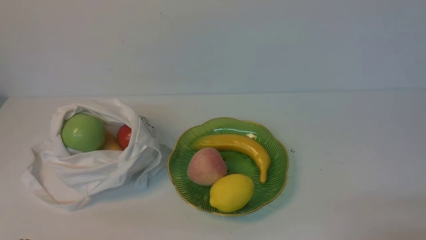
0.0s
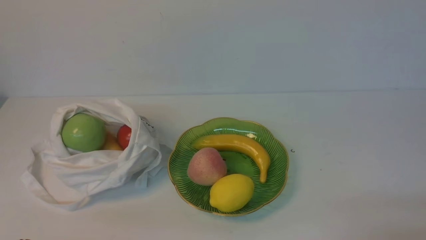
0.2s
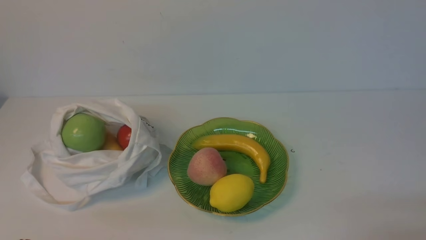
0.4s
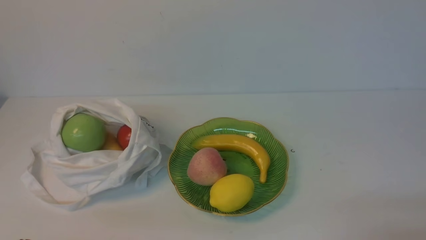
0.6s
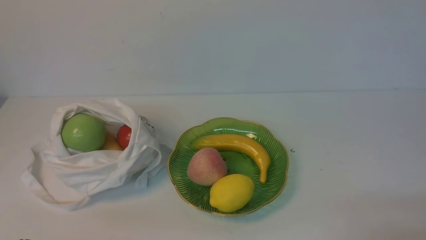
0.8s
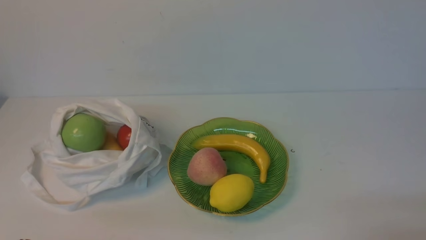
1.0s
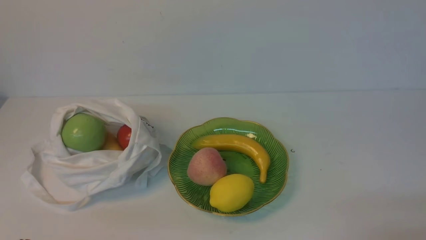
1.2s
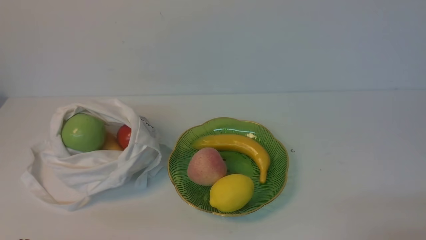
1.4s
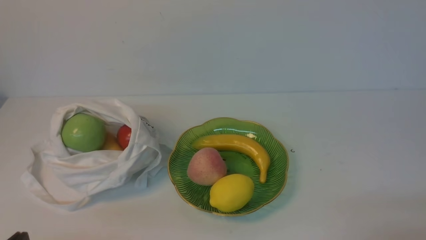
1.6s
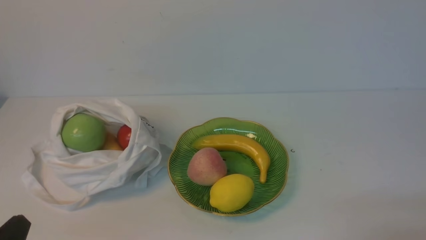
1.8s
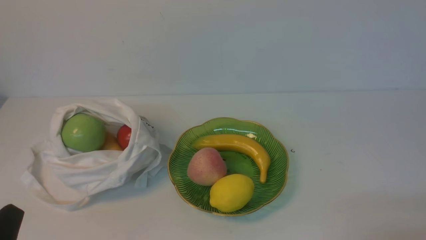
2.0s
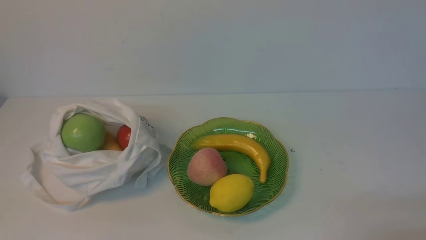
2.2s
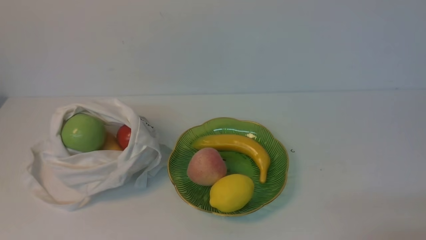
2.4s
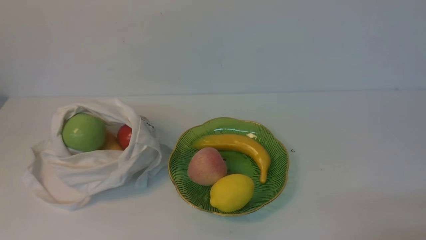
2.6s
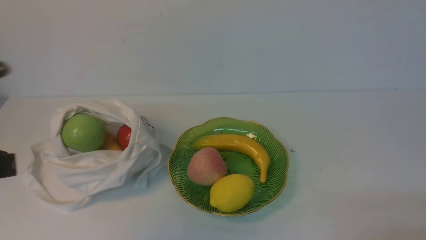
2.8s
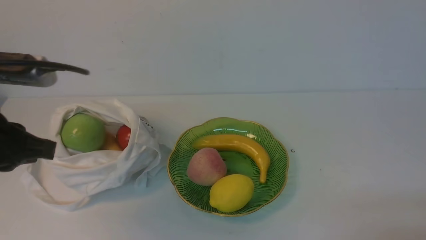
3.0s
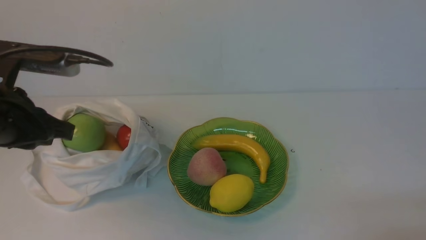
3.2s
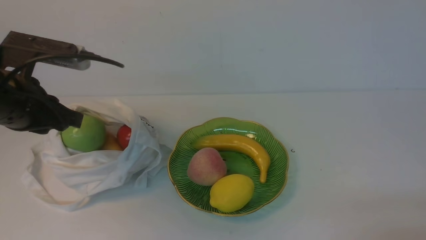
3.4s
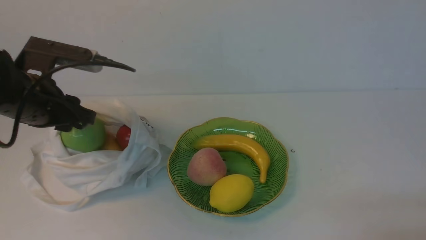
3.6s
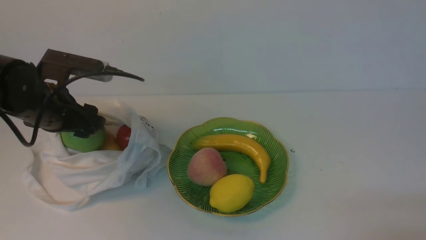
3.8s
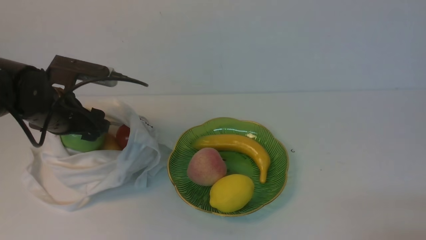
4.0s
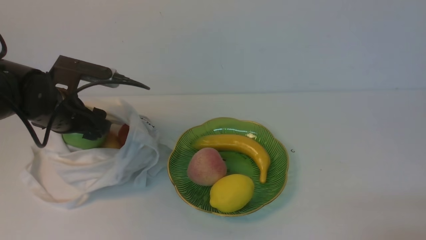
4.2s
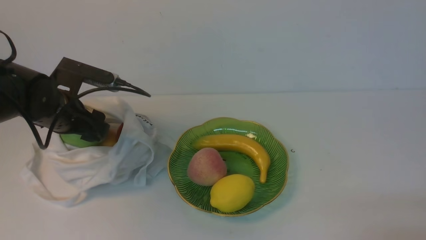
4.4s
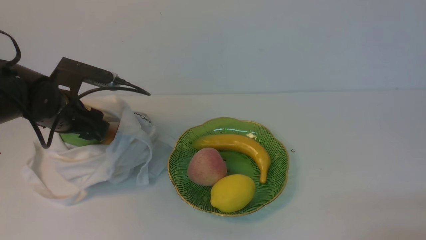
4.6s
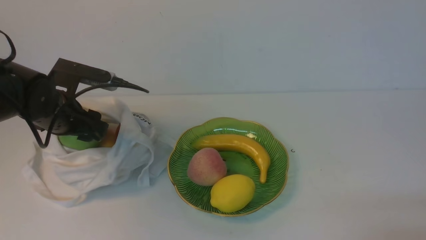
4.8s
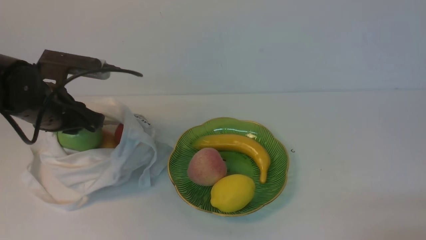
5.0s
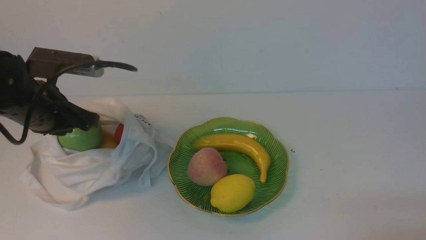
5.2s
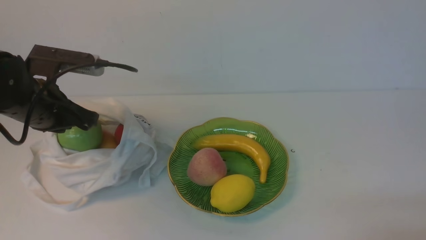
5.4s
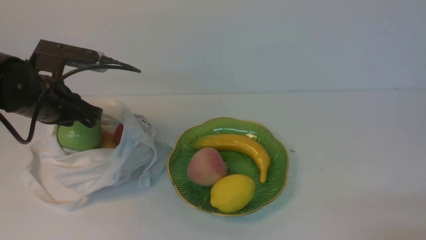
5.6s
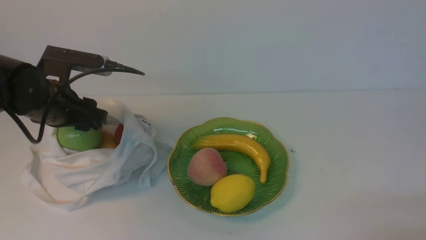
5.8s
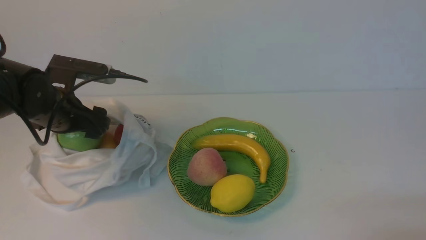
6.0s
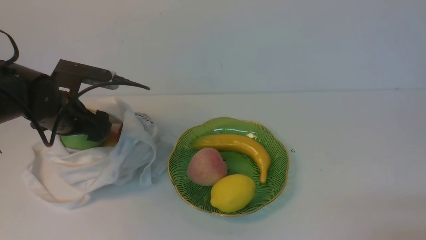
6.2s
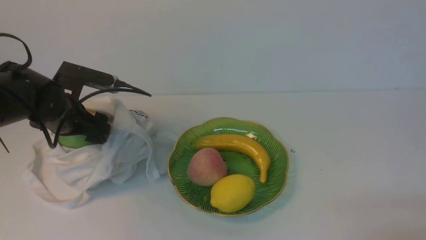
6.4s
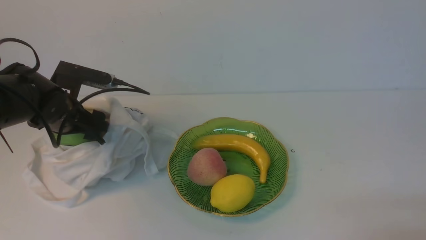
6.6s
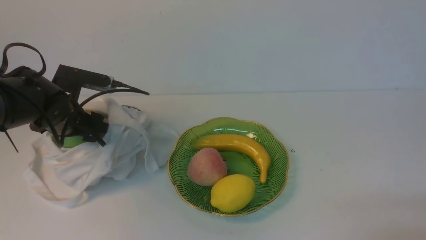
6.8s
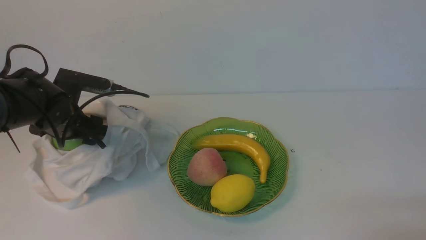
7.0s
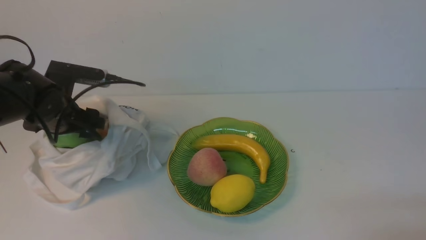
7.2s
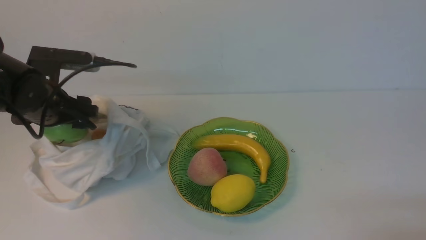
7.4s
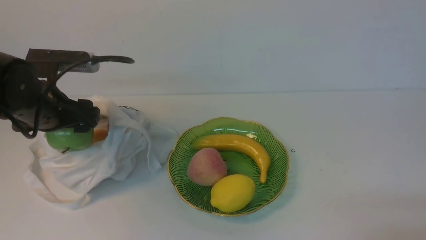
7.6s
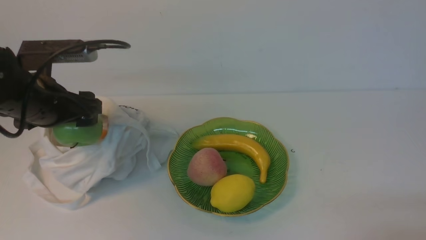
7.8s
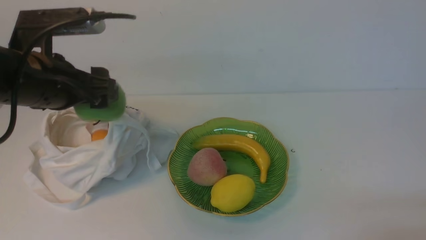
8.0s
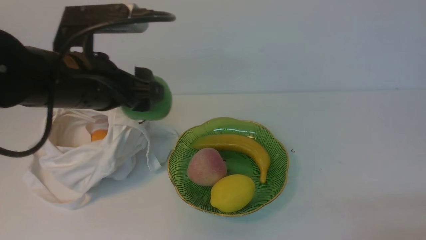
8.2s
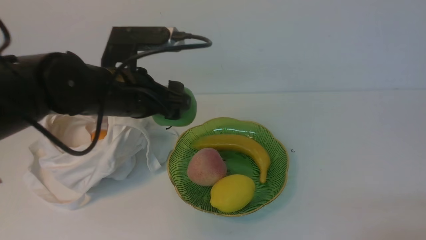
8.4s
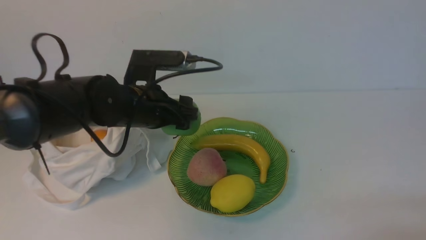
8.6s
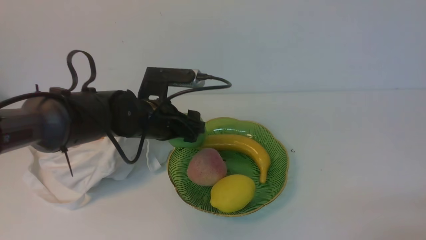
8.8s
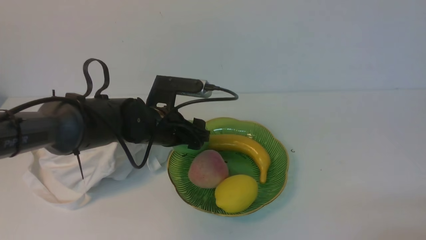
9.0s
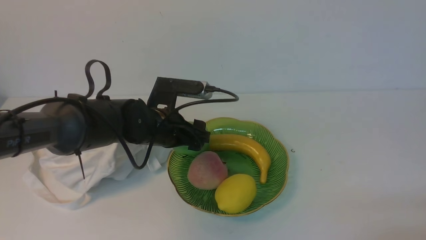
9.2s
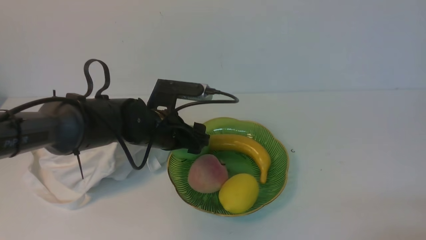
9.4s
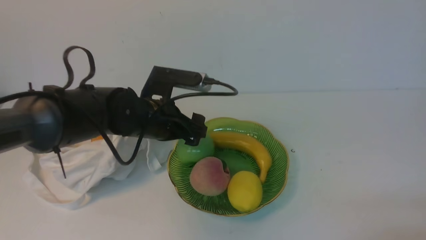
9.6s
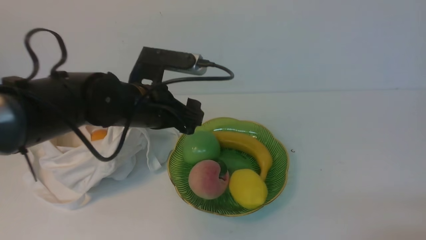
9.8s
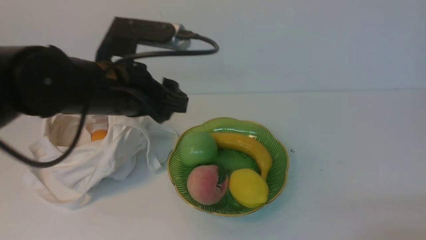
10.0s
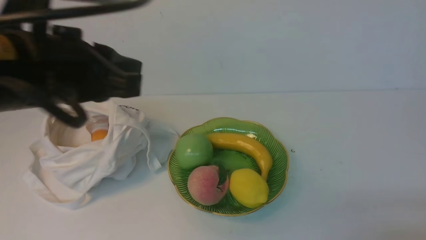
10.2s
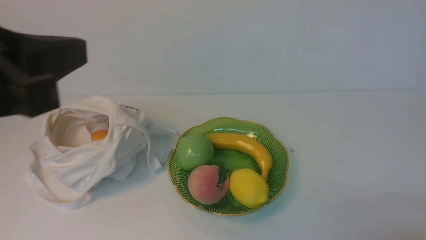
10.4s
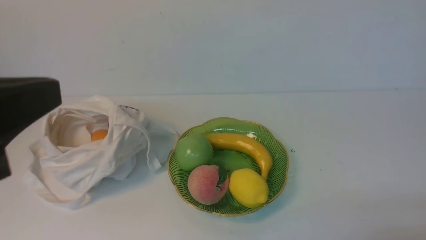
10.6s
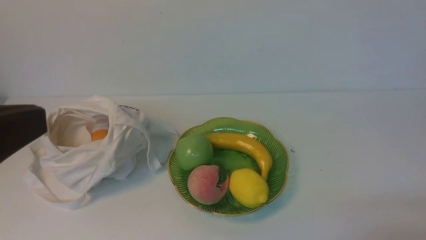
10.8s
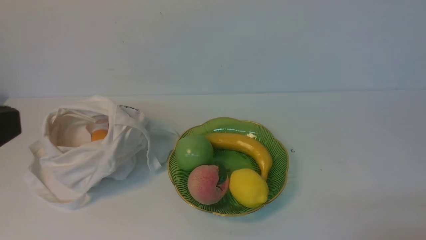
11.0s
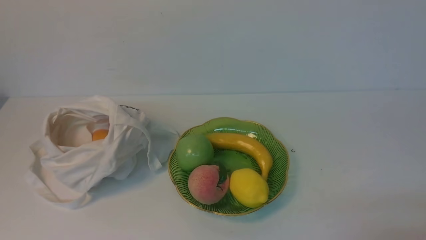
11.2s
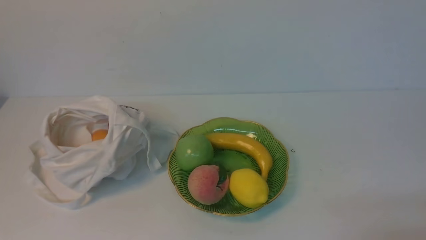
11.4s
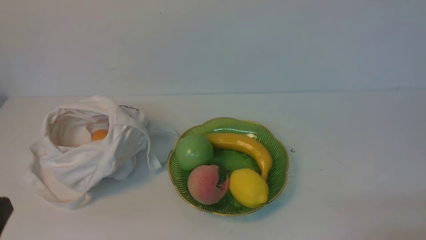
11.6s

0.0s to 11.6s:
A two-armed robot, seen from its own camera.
Step, 0.0s to 7.4s: use the left arm to grab an apple from the bag.
Step, 7.6s to 9.8s: use the left arm to put the apple into the empty plate on the right.
2.8s to 4.4s: The left gripper heads forward and downward, covering approximately 25 cm, and opens its fingers.
4.4s to 5.8s: The left gripper closes.
5.8s to 7.2s: The left gripper opens.
7.2s to 8.8s: The left gripper shifts some 15 cm to the right.
8.8s to 10.2s: The left gripper goes some 20 cm upward and backward, and closes.
10.2s to 11.6s: The left gripper goes about 20 cm backward, to the left and downward.

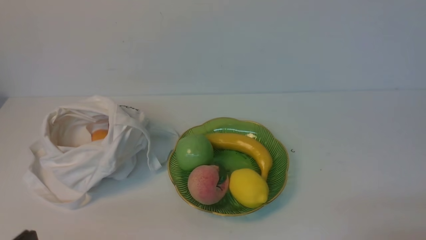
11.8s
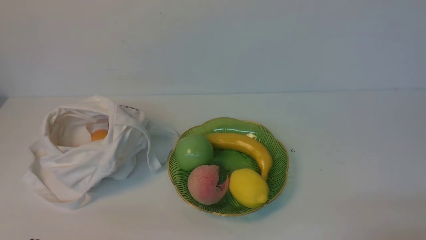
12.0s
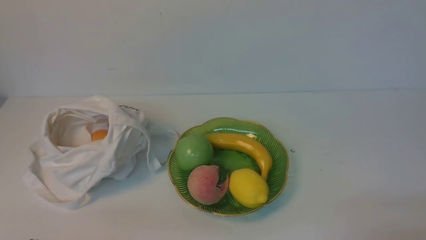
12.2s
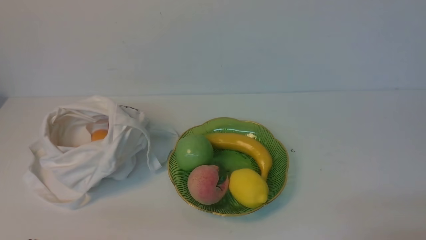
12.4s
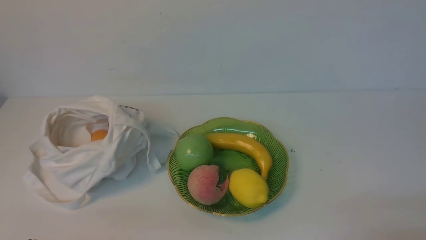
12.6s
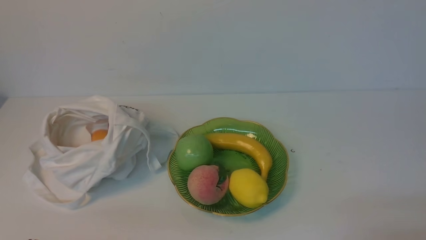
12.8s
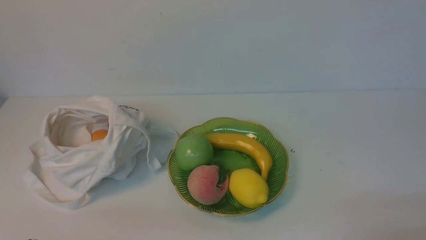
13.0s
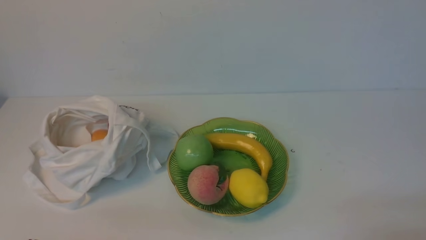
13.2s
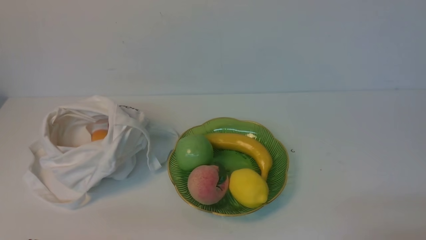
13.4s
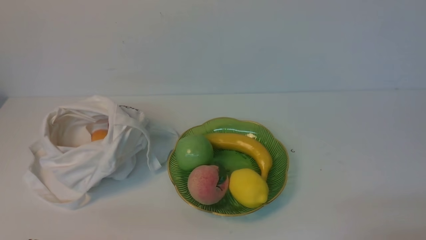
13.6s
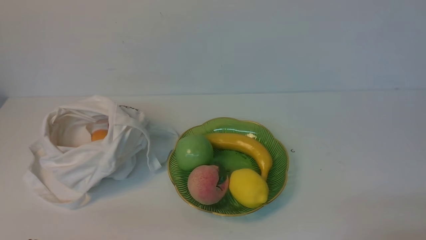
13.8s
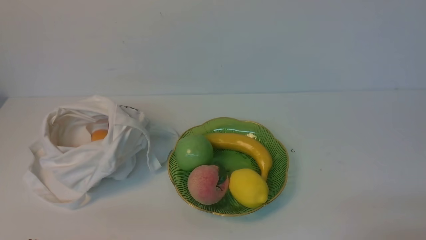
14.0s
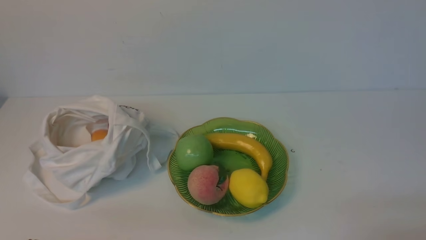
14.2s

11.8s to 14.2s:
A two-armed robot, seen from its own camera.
13.0s to 14.2s: Neither gripper changes place.
